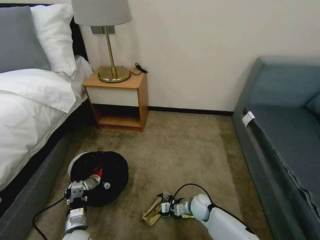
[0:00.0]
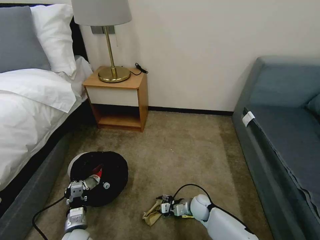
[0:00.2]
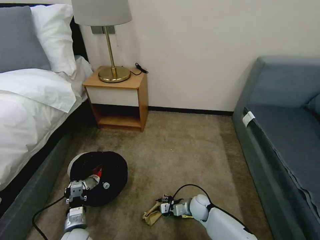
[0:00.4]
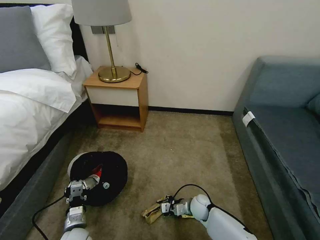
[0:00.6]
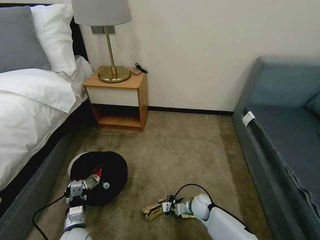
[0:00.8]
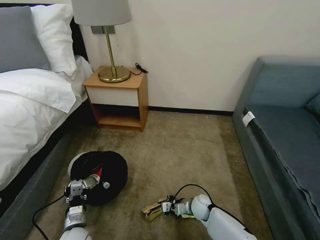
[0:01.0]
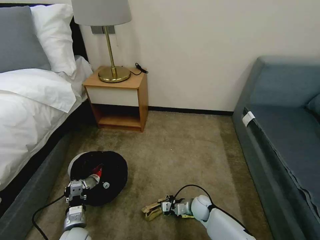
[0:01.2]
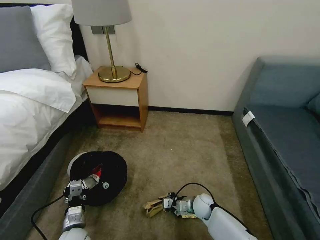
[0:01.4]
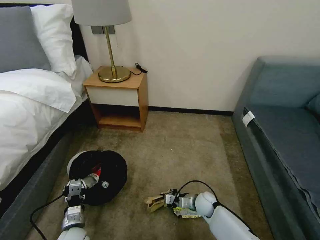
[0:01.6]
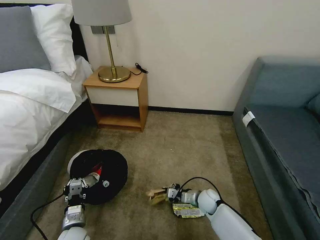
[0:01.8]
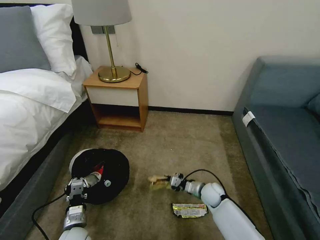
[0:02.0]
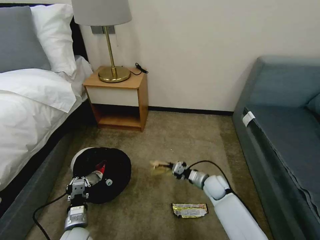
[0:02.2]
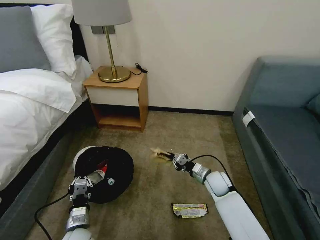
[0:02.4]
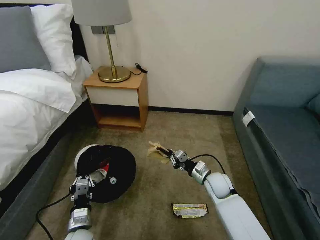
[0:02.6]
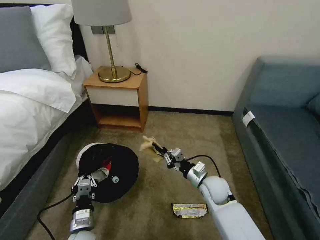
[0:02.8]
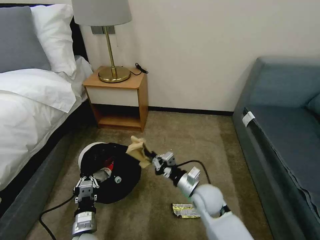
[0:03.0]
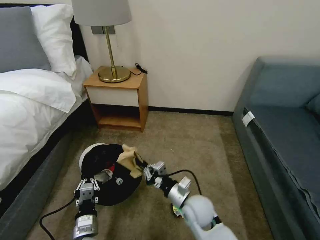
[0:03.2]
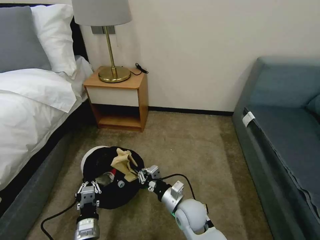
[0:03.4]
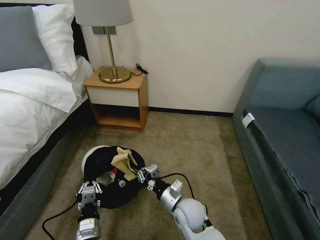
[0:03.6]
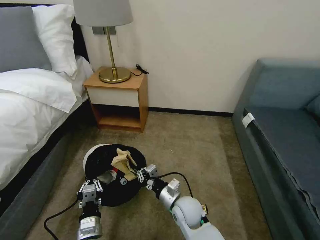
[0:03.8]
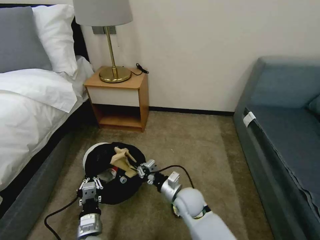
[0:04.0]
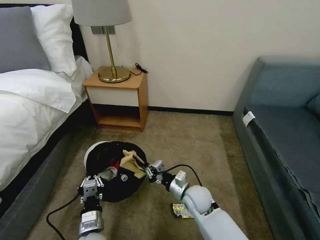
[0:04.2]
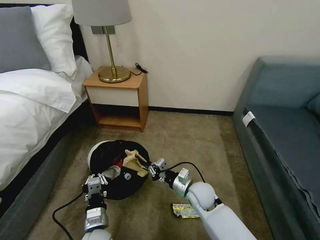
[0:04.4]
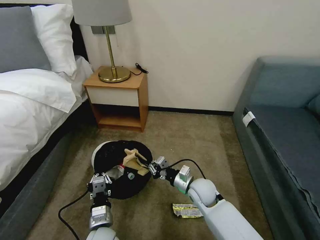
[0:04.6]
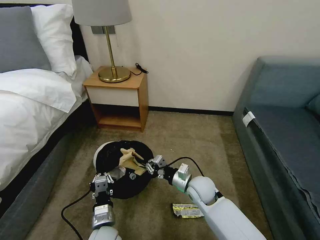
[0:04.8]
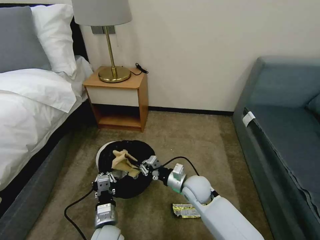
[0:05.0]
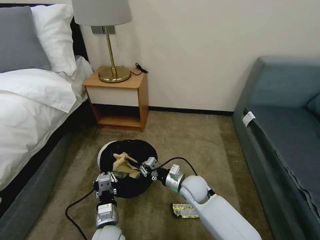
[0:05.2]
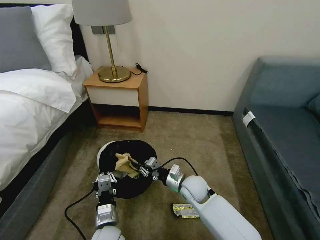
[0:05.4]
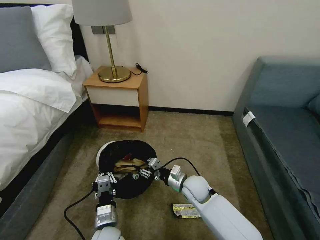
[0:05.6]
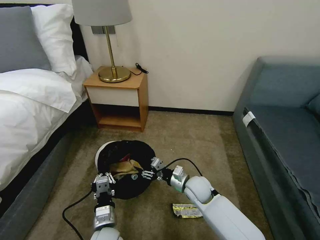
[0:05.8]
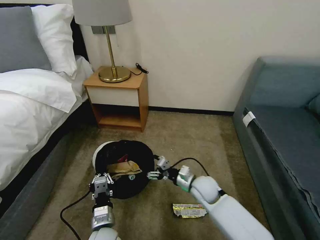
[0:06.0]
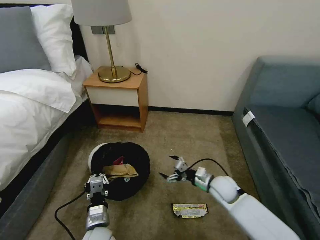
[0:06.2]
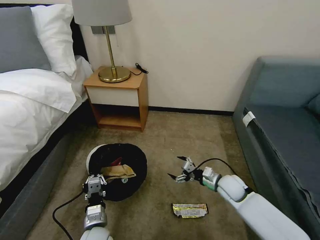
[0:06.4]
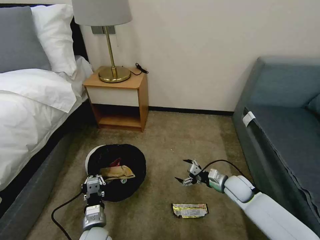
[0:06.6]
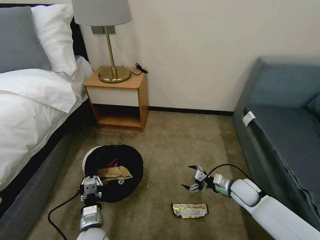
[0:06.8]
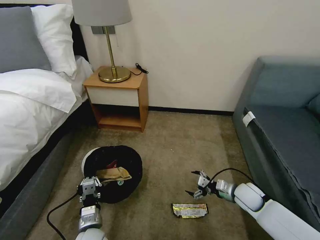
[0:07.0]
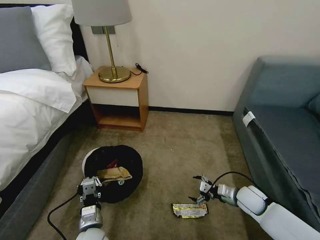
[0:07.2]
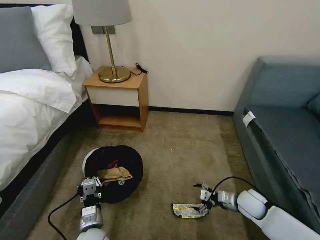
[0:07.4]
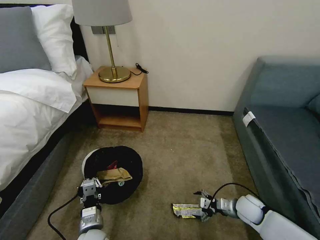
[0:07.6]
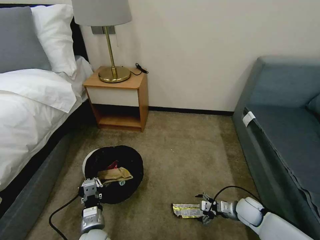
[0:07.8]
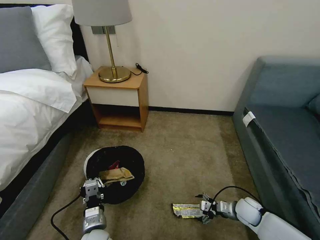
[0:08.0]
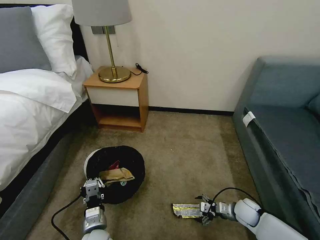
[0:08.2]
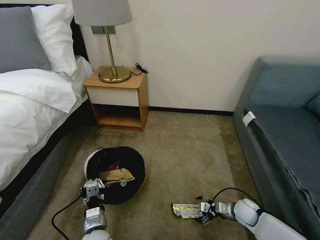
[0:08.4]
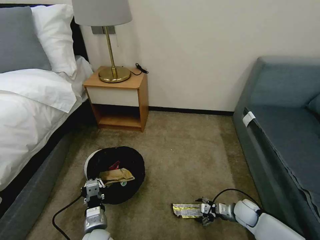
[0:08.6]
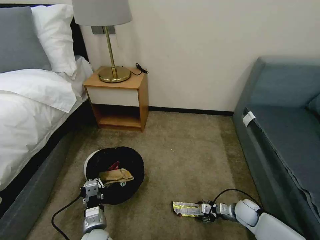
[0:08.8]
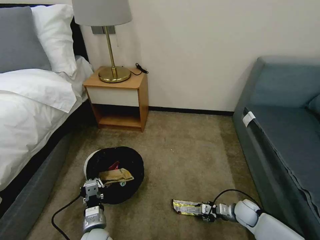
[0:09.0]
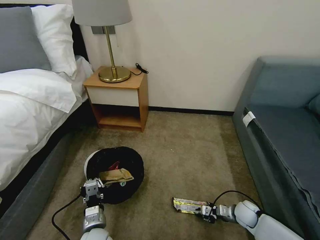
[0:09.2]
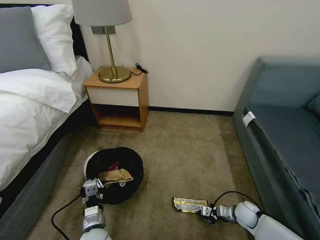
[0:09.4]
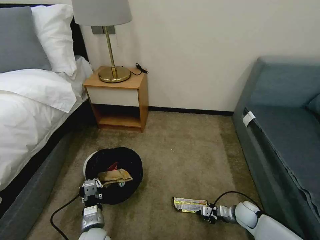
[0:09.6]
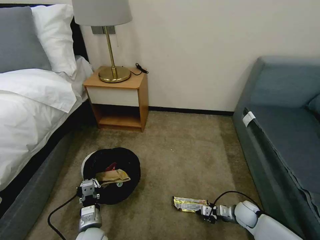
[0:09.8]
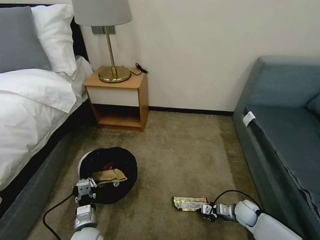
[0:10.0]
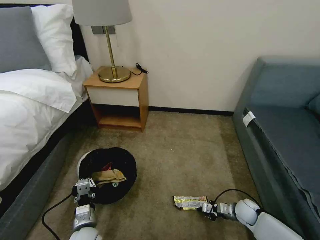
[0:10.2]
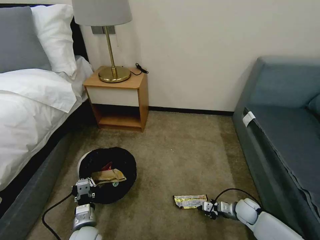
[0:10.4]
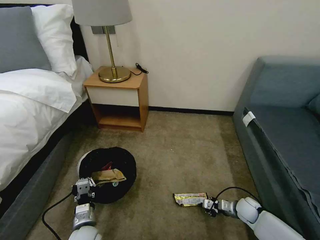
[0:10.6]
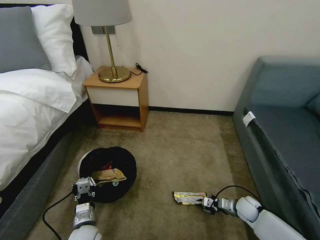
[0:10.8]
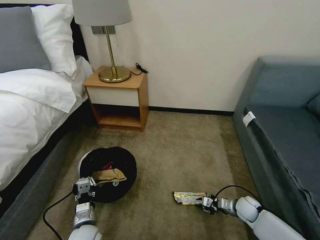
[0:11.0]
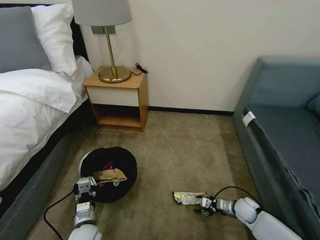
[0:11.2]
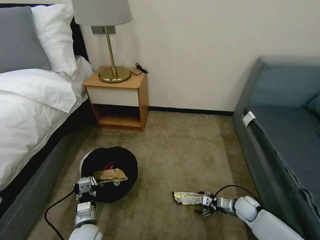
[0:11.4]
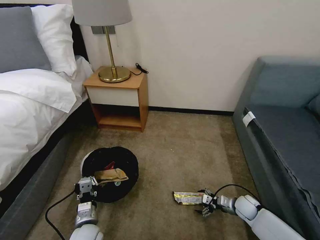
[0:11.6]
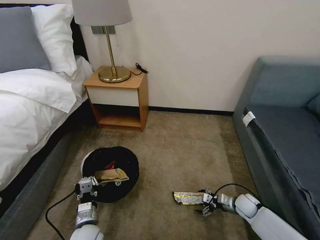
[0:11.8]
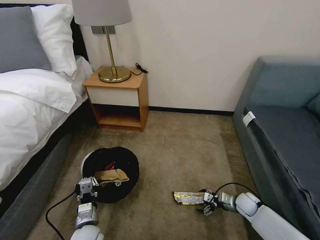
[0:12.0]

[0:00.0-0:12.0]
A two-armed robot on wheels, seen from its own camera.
Task of the whole recording: Pick up the trash bin, then pick up the garbage on the floor and place it into the trash bin.
0:00.0 to 0:01.6: The right gripper closes its fingers.
0:01.6 to 0:03.0: The right gripper travels upward by about 20 cm, while the left gripper is displaced to the right by some 5 cm.
0:04.4 to 0:06.0: The right gripper opens its fingers.
0:06.0 to 0:07.6: The right gripper goes approximately 20 cm to the right and downward.
0:07.6 to 0:09.0: The right gripper is displaced downward by roughly 5 cm, and closes its fingers.
0:09.0 to 0:10.4: The right gripper closes its fingers.
0:10.4 to 0:12.0: The right gripper opens.

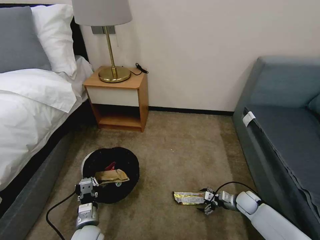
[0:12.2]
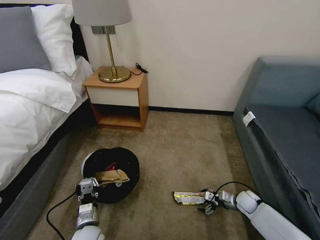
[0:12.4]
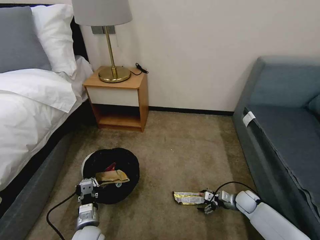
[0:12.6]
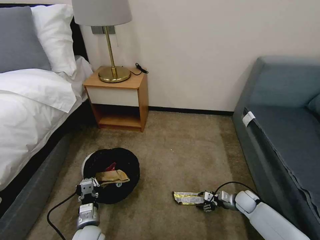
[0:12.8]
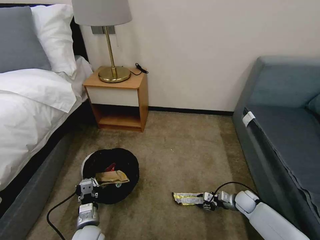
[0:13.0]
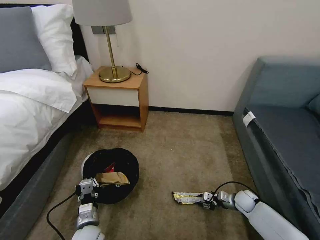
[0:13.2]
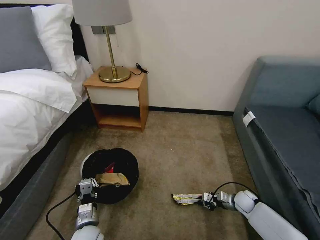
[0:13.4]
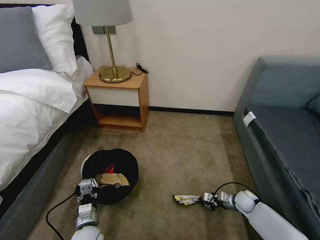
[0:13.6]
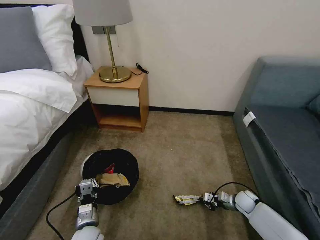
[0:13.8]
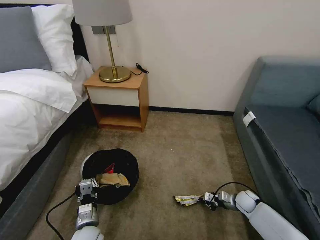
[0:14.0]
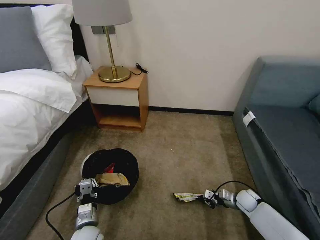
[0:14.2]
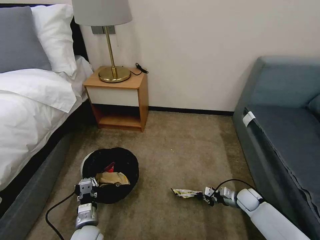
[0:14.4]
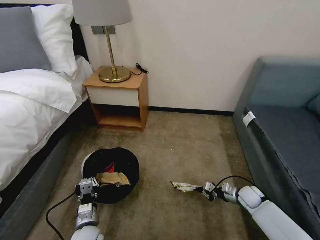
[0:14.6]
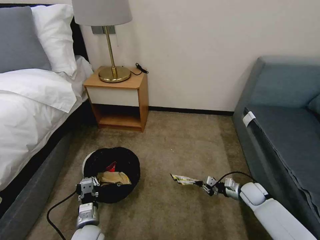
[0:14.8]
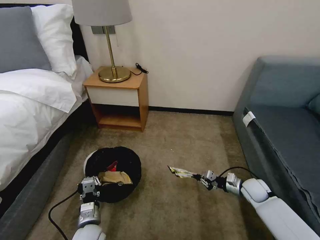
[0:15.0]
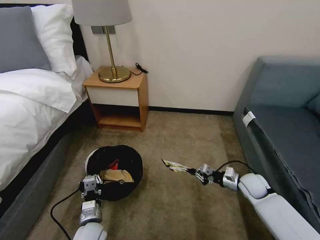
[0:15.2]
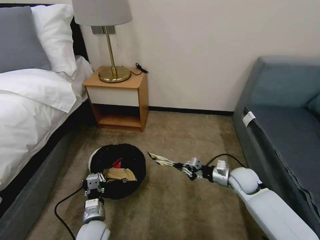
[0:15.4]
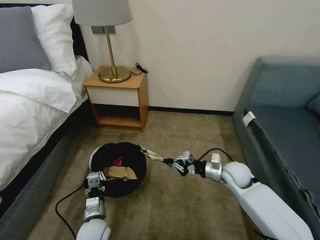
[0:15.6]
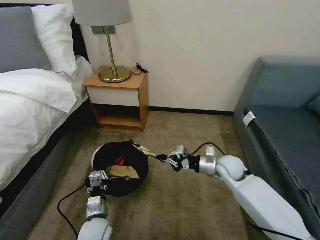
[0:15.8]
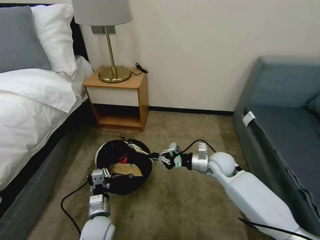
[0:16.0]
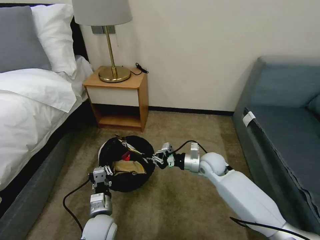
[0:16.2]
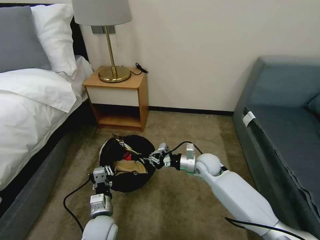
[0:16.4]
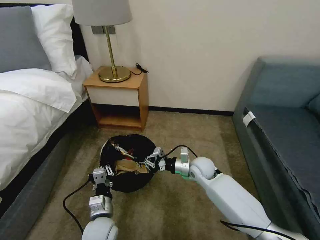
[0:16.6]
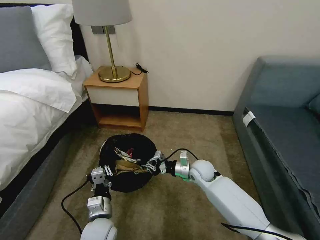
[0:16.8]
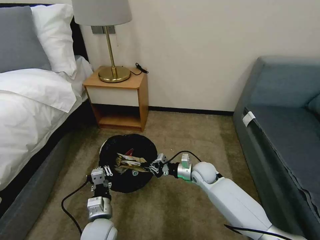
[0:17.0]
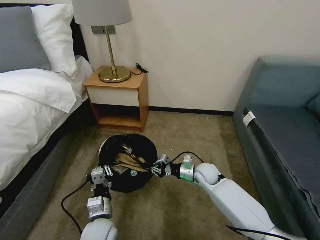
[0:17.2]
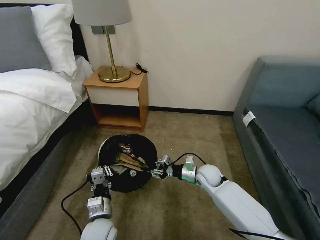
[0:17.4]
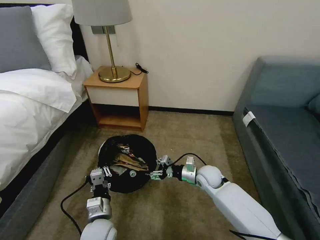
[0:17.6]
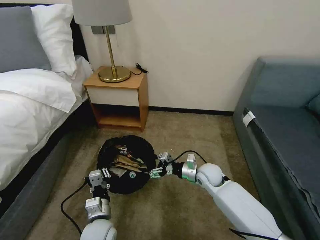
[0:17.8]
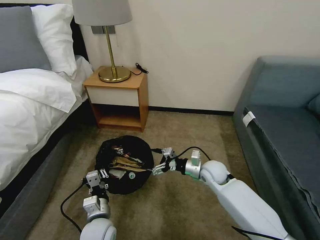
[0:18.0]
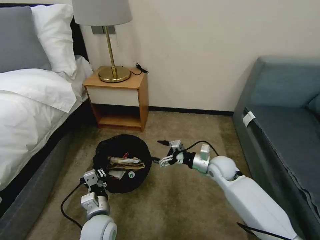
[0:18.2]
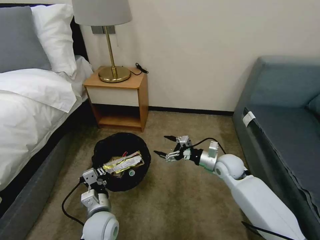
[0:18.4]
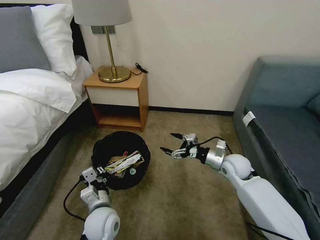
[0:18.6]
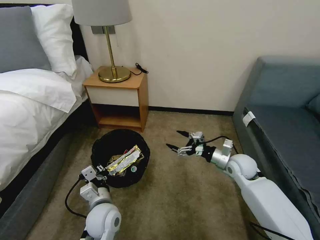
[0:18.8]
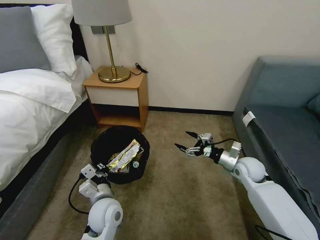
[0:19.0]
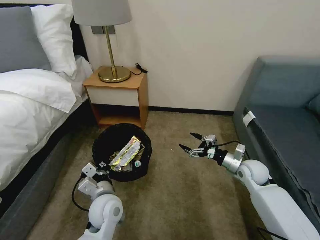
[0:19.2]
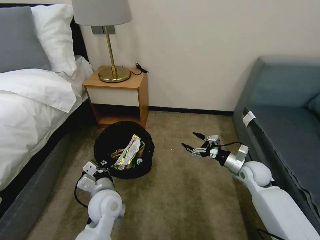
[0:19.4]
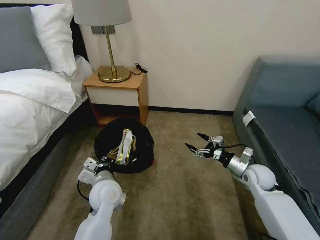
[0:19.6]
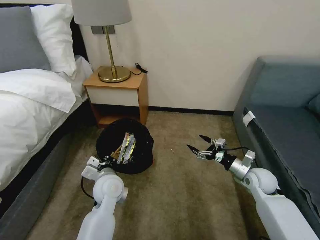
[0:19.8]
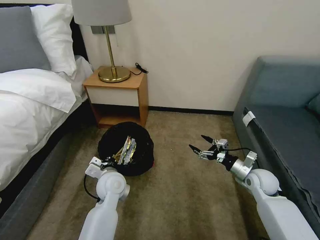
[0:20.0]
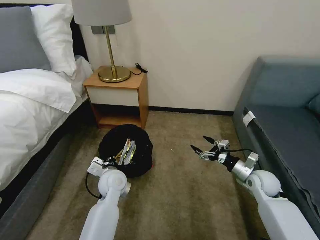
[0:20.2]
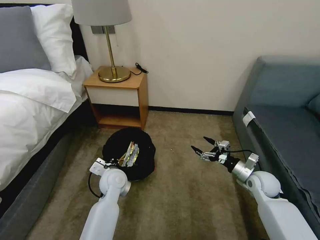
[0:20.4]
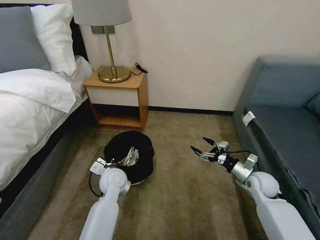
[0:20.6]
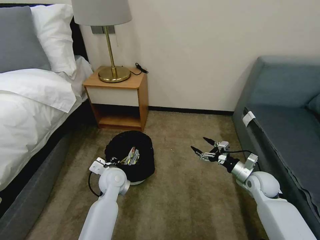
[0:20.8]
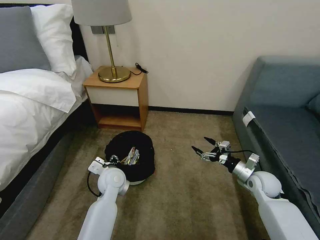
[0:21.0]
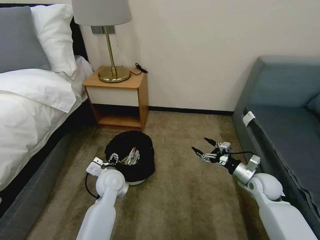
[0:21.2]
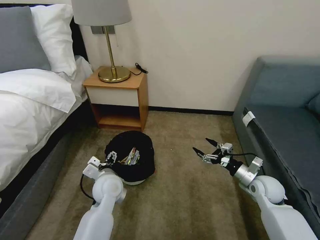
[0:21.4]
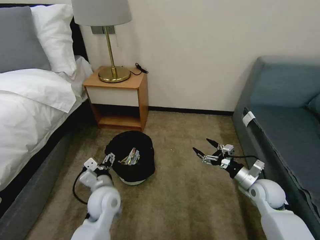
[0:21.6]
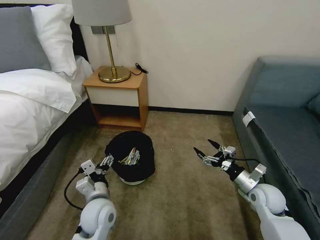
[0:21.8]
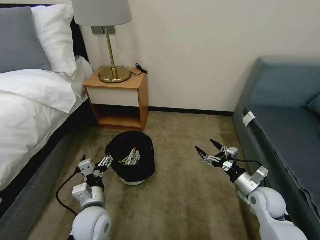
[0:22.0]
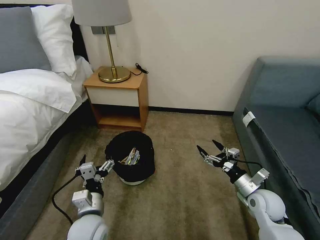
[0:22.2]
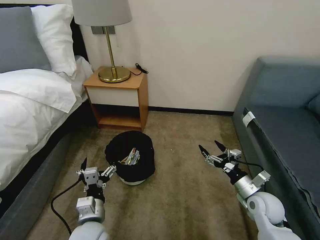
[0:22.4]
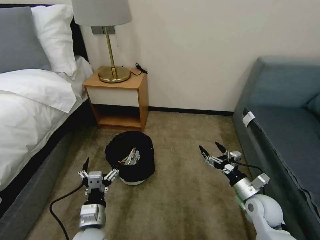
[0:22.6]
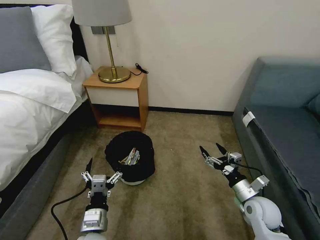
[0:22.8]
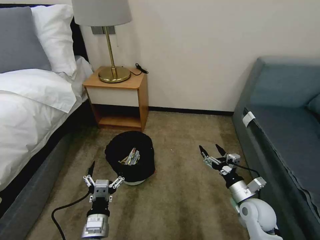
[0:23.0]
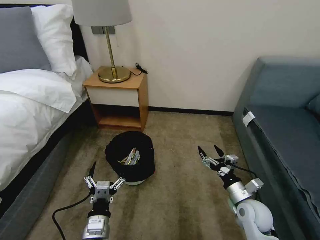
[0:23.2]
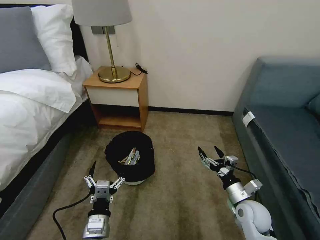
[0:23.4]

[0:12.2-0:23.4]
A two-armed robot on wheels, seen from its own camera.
Task of the whole recording: Pick up the trash bin, then pick up the garbage on the floor and place it into the trash bin.
0:12.2 to 0:13.8: The right gripper closes.
0:13.8 to 0:15.4: The right gripper moves upward and to the left, some 20 cm.
0:15.4 to 0:17.0: The right gripper goes some 15 cm to the left; the left gripper changes place by some 5 cm.
0:17.0 to 0:18.6: The right gripper is displaced to the right and upward by about 15 cm, and opens.
0:18.6 to 0:20.2: The right gripper travels to the right by approximately 10 cm, while the left gripper heads forward, covering approximately 10 cm.
0:20.2 to 0:21.8: The right gripper travels backward by approximately 5 cm. The left gripper shifts some 10 cm backward, and opens.
0:21.8 to 0:23.4: The right gripper shifts about 5 cm to the left; the left gripper travels backward by about 10 cm.
